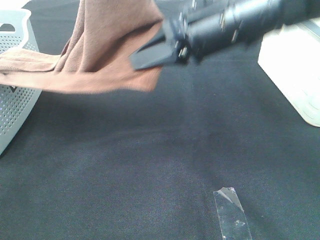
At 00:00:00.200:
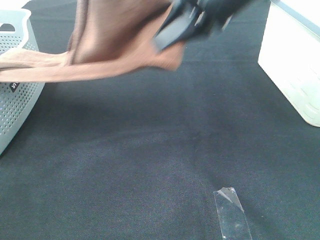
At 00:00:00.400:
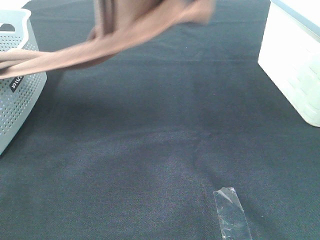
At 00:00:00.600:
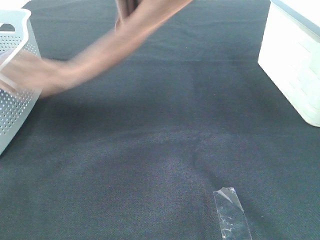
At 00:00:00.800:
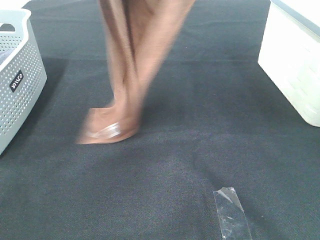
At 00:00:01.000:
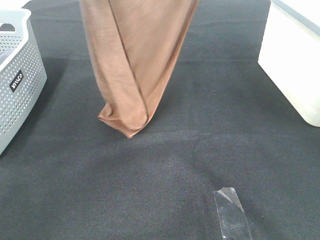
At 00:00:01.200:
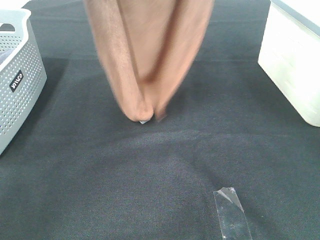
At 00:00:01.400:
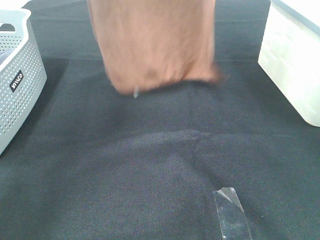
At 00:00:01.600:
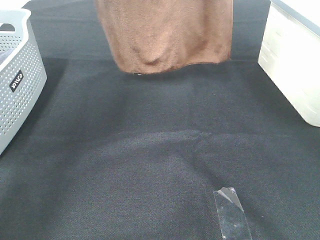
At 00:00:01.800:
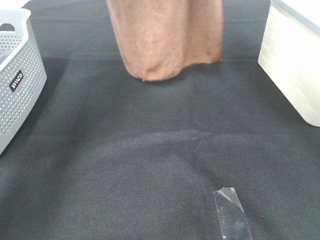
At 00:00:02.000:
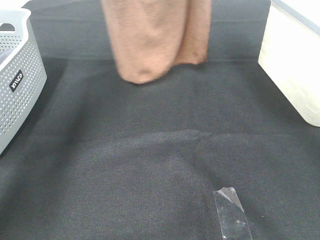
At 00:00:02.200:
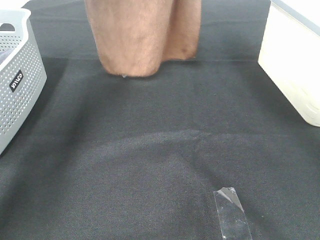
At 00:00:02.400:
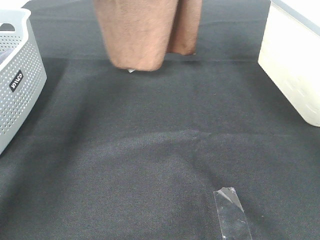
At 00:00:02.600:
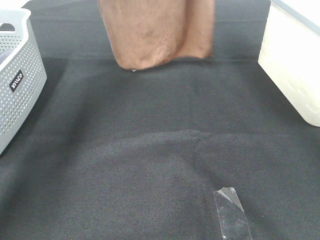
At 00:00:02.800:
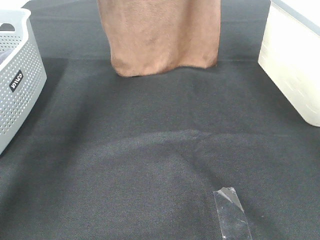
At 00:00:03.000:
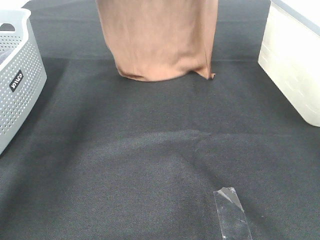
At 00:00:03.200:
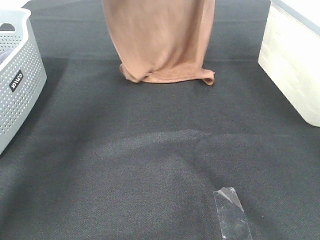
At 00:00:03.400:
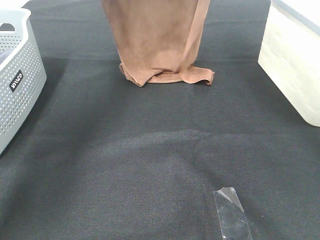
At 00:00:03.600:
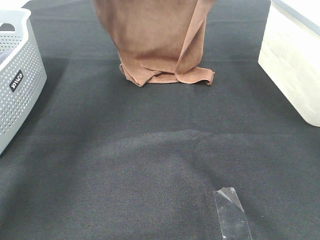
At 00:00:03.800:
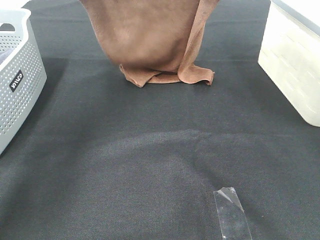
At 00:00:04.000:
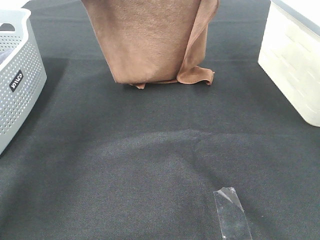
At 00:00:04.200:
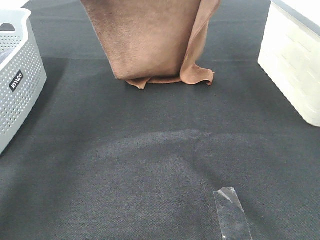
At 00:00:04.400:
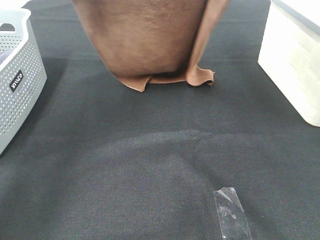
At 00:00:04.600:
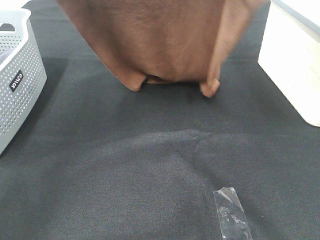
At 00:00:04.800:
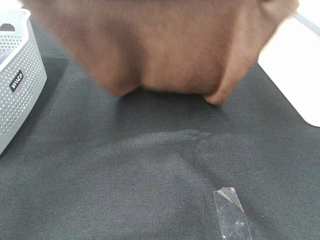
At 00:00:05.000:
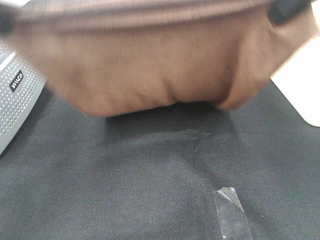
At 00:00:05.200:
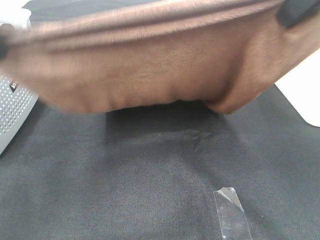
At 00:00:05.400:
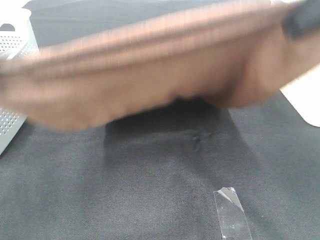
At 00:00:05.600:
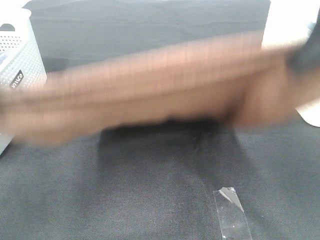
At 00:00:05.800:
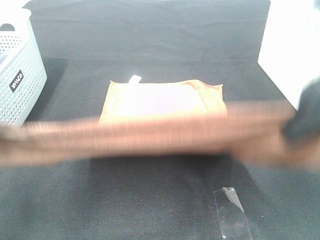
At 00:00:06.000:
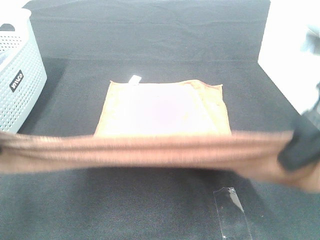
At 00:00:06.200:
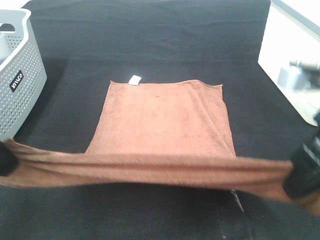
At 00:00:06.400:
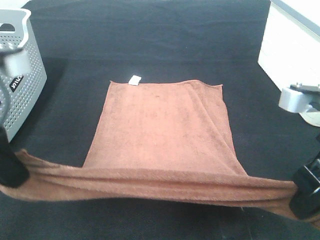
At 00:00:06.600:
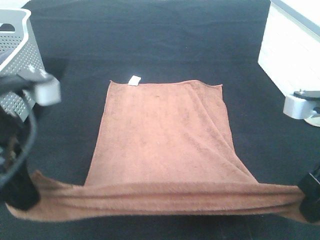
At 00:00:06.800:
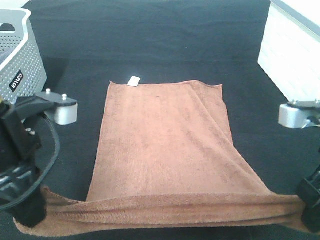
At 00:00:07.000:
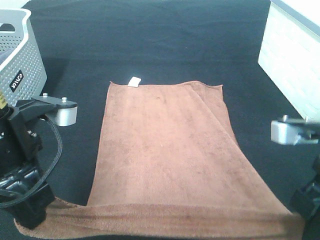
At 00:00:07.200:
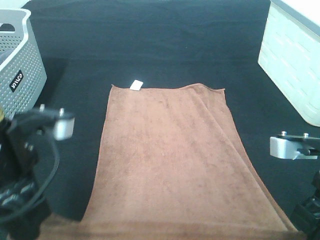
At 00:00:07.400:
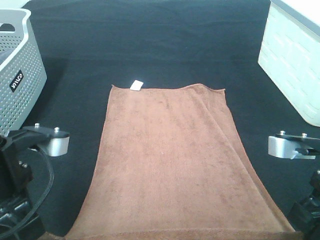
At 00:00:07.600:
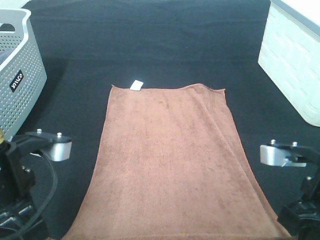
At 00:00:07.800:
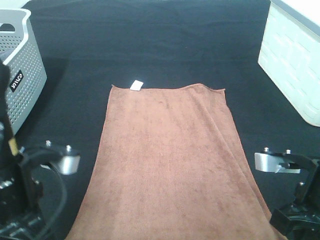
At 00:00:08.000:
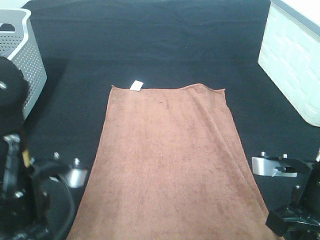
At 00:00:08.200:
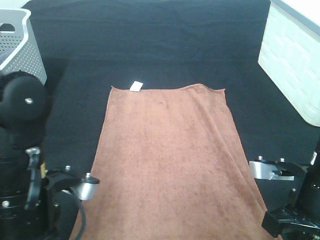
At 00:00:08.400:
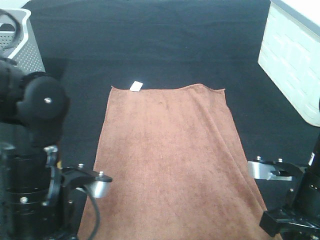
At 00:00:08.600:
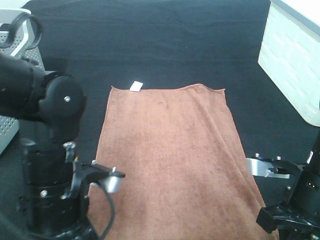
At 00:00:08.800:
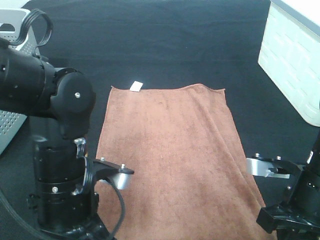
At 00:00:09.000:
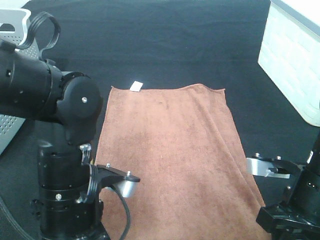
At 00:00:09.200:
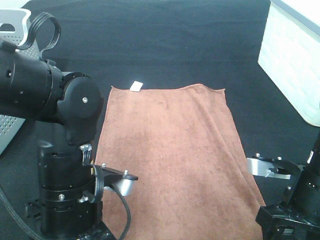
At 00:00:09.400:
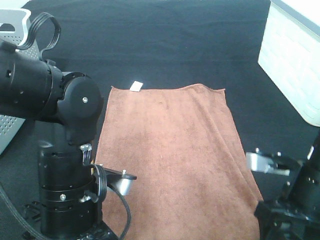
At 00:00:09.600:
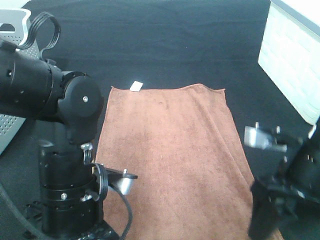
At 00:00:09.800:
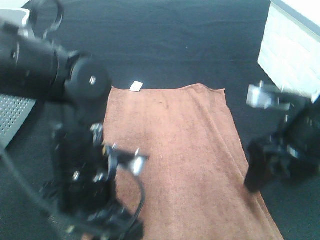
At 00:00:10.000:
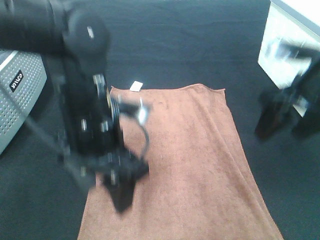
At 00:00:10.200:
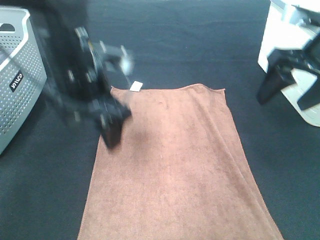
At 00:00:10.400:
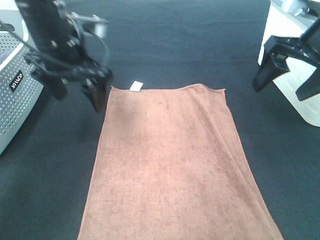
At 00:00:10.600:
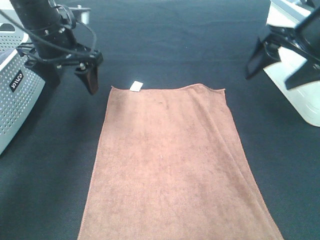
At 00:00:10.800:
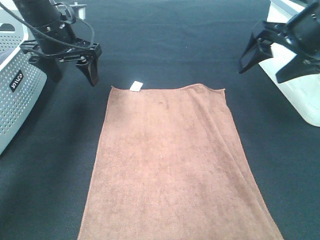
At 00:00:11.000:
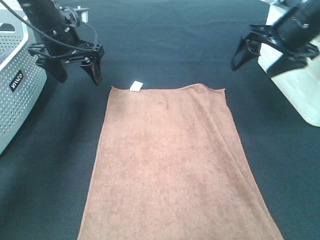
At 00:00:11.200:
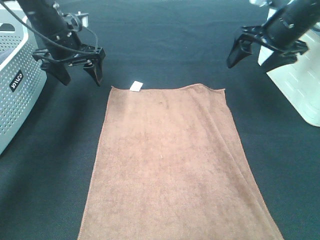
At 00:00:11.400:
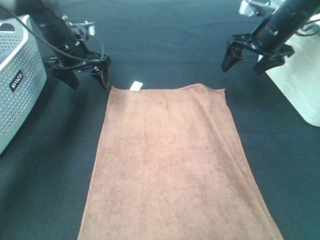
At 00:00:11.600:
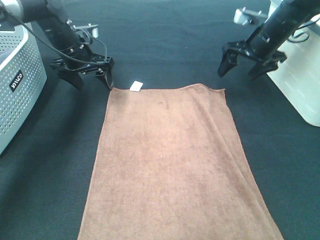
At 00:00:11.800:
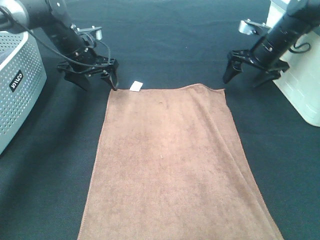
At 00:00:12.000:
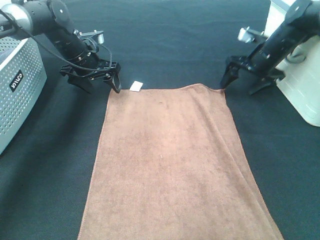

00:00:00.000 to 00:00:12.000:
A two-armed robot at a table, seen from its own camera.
Task of the whole recording: Remove the towel and place it.
Step, 00:00:00.000 to 00:00:05.000: Left hand: spread the brown towel flat on the table.
Step, 00:00:00.000 to 00:00:05.000: Right hand: spread the brown towel flat on the table.
00:00:00.000 to 00:00:01.600: The right gripper heads upward and forward, covering some 25 cm. Meanwhile the left gripper moves forward, some 15 cm.
00:00:01.600 to 00:00:03.000: The left gripper heads forward and downward, covering approximately 10 cm. Meanwhile the right gripper goes about 10 cm downward and forward.
00:00:03.000 to 00:00:04.400: Both grippers travel together backward, roughly 10 cm.
00:00:04.400 to 00:00:06.000: The grippers both shift backward and downward by approximately 25 cm.
00:00:06.000 to 00:00:07.600: The right gripper shifts approximately 10 cm downward. Meanwhile the left gripper is displaced downward and to the right by roughly 10 cm.
00:00:07.600 to 00:00:09.000: The right gripper opens up. Meanwhile the left gripper heads to the right and downward, covering approximately 10 cm.
00:00:09.000 to 00:00:10.400: The grippers both shift forward and upward by some 20 cm. The right gripper opens up. The left gripper opens.
00:00:10.400 to 00:00:12.000: Both grippers travel together forward and downward, about 20 cm.

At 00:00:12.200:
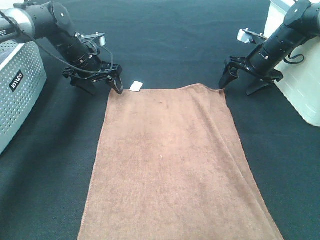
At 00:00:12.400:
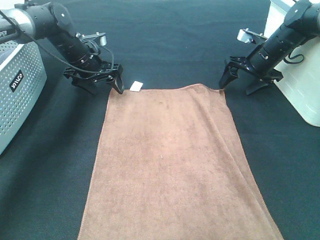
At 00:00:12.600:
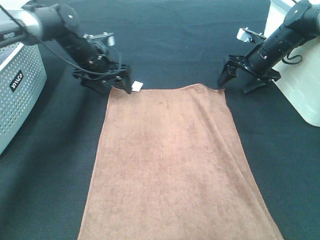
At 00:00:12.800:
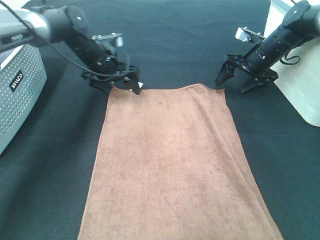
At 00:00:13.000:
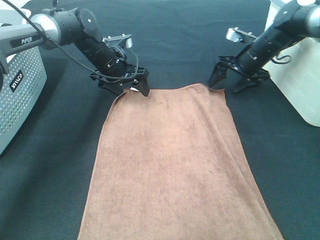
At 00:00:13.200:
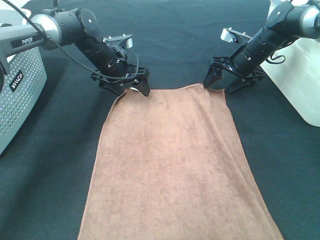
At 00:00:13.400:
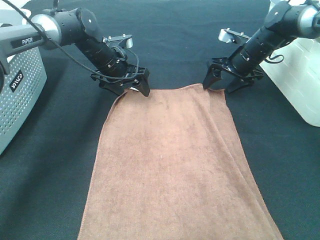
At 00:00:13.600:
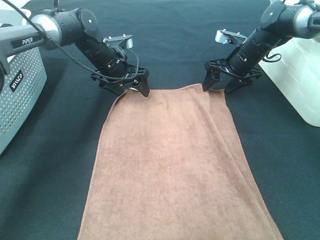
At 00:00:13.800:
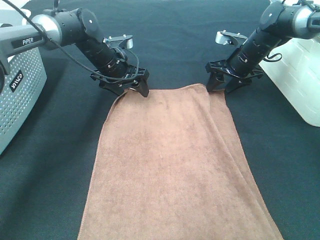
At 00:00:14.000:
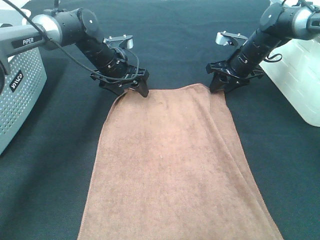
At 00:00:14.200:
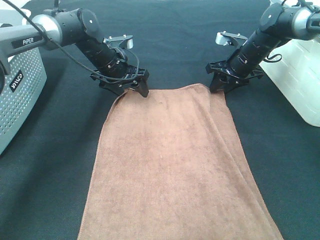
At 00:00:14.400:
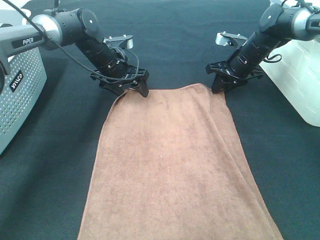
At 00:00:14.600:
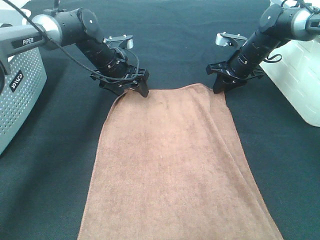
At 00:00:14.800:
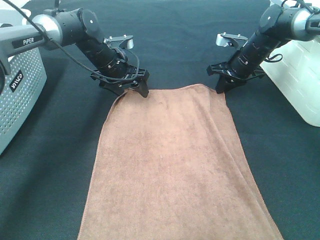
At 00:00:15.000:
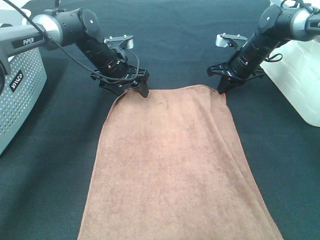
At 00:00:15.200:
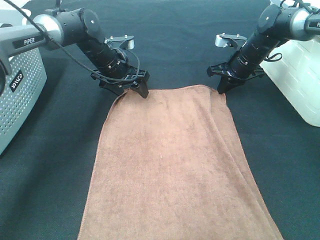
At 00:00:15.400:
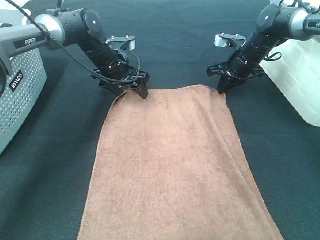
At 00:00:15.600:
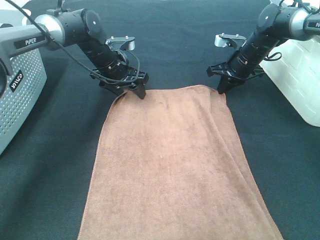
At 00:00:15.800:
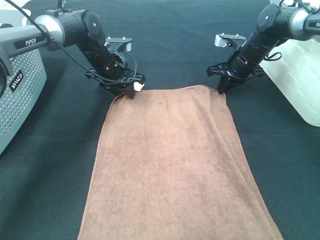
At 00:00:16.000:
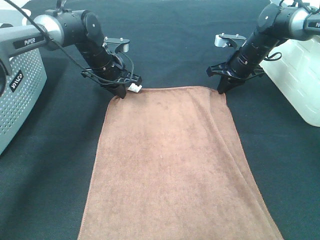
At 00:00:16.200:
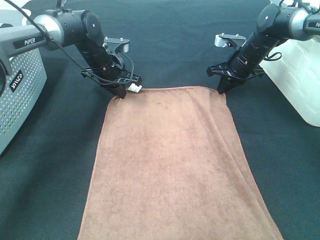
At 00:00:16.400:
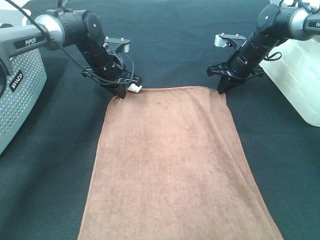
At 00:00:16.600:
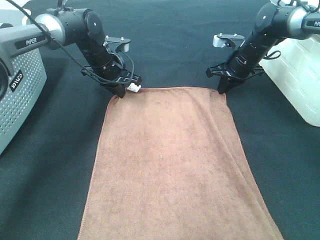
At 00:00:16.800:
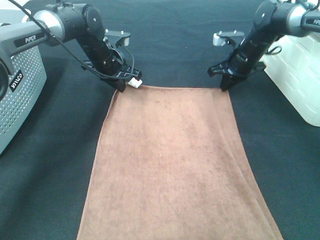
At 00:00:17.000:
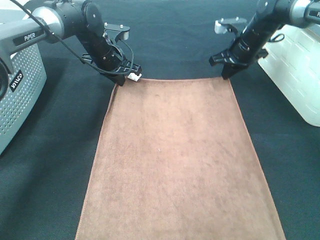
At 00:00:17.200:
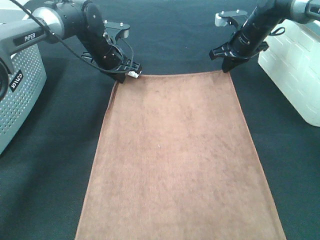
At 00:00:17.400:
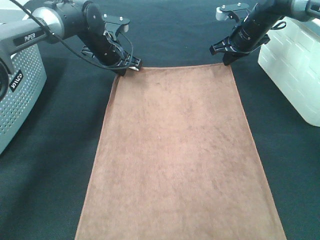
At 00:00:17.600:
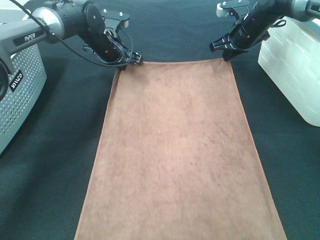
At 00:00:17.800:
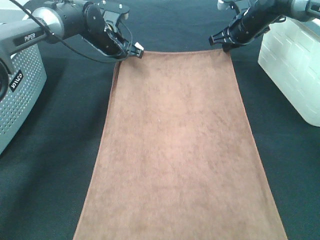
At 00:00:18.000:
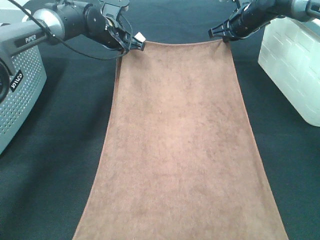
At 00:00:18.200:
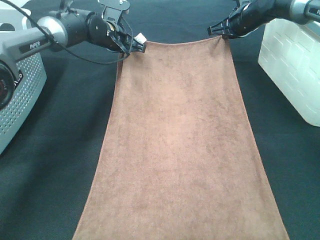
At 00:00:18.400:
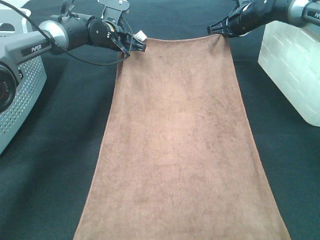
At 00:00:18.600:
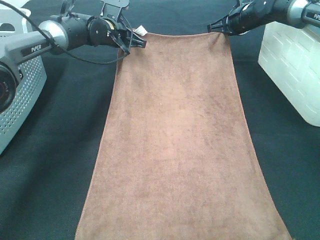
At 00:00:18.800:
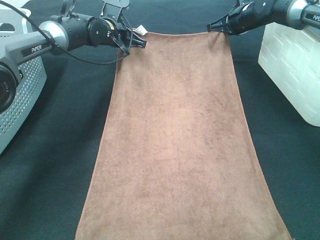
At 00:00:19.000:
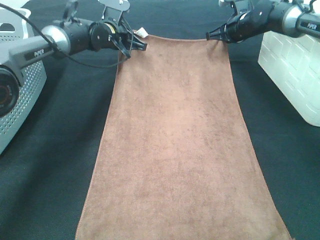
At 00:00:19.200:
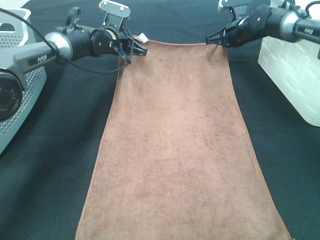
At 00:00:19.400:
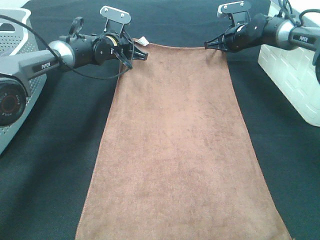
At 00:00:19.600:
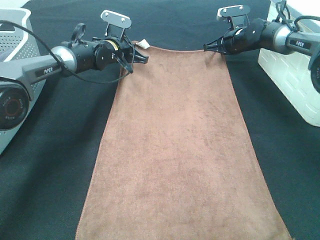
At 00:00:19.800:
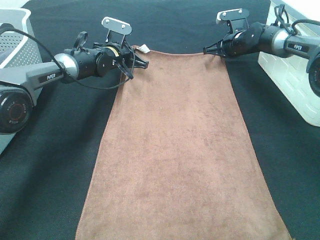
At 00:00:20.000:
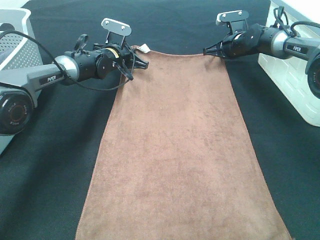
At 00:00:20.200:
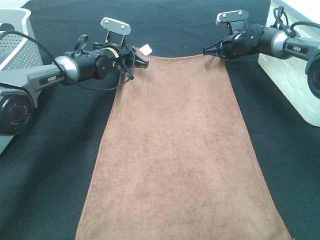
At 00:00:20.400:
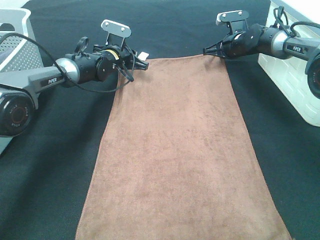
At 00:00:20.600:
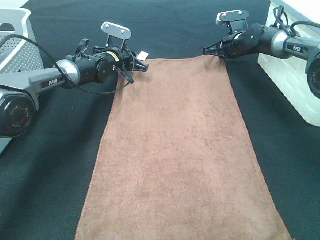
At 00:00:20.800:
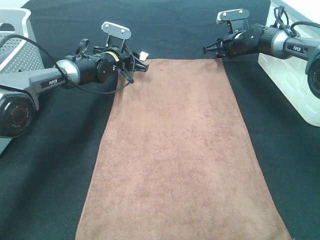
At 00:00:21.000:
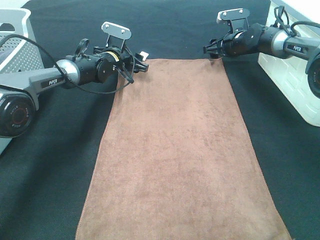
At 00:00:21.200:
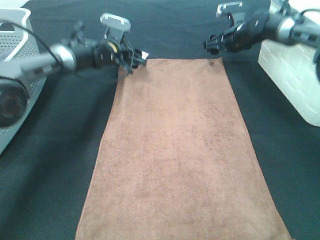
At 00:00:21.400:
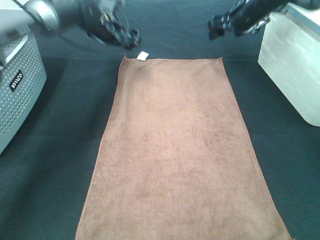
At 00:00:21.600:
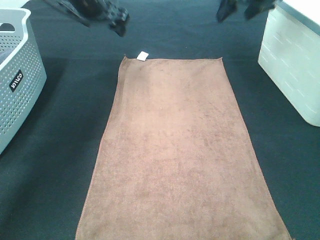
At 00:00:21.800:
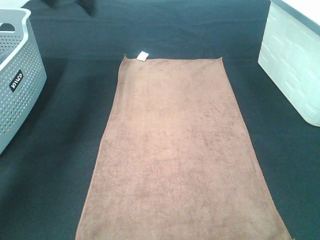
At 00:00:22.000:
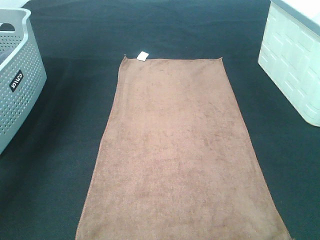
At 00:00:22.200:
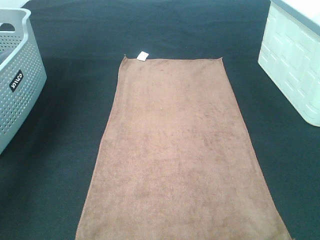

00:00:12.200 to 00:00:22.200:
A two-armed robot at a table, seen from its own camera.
Task of the whole recording: Remove the towel and place it.
Step, 00:00:12.200 to 00:00:14.200: Left hand:adjust the brown towel.
Step, 00:00:12.200 to 00:00:14.200: Right hand:adjust the brown towel.
00:00:12.200 to 00:00:13.600: The left gripper goes about 5 cm to the right. The right gripper changes place by some 5 cm.
00:00:13.600 to 00:00:15.000: The right gripper closes.
00:00:15.000 to 00:00:16.400: The left gripper closes its fingers.
00:00:16.400 to 00:00:18.000: The left gripper changes place by some 5 cm, while the right gripper travels upward and forward by roughly 10 cm.
00:00:18.000 to 00:00:19.400: Both grippers travel together downward, roughly 5 cm.
00:00:19.400 to 00:00:20.800: The right gripper opens, while the left gripper opens its fingers.
00:00:20.800 to 00:00:22.200: The right gripper goes approximately 40 cm upward and backward. Meanwhile the left gripper moves upward, to the left and backward, about 40 cm.
